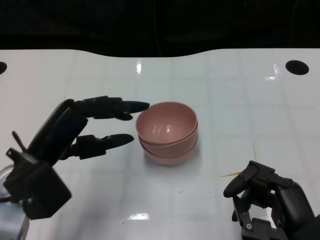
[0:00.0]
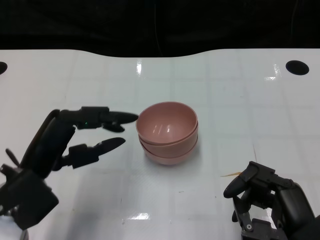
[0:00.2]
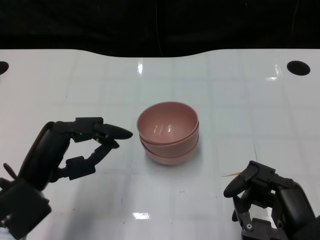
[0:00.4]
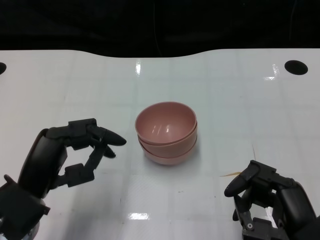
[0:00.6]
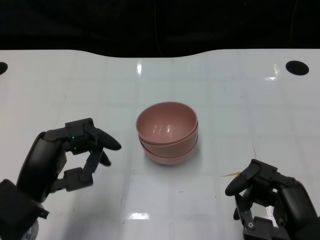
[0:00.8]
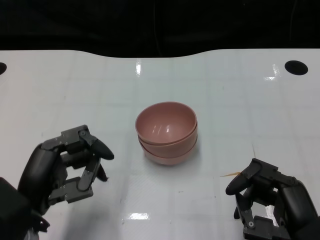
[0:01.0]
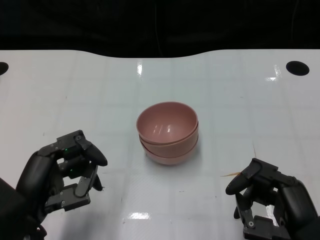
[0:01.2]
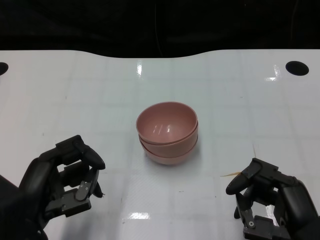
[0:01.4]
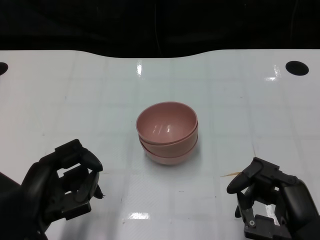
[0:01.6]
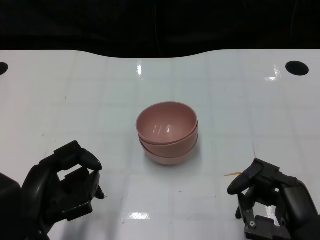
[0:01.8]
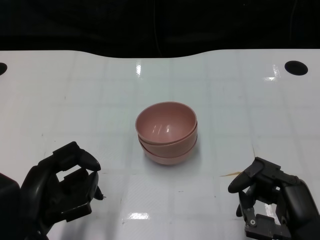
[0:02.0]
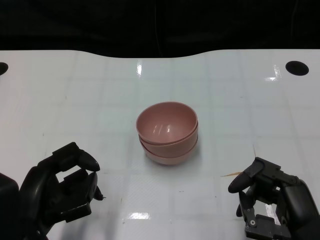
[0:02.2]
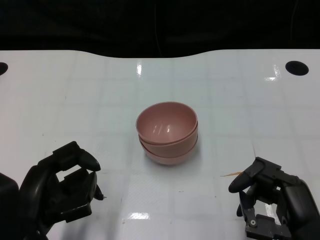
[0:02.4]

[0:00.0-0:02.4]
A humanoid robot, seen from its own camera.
Task of the whole recording: Pick up the bowl on one side of the table and place it on top of the middle bowl, then pick up the bowl on the other side of the table and place it on top of the middle bowls.
0:00.0 to 0:01.2: The left hand is displaced backward by about 5 cm.
0:01.2 to 0:02.4: There are only small adjustments of the hands.

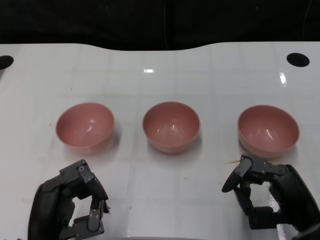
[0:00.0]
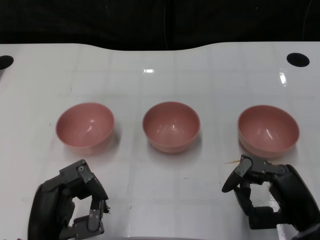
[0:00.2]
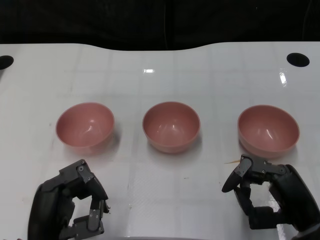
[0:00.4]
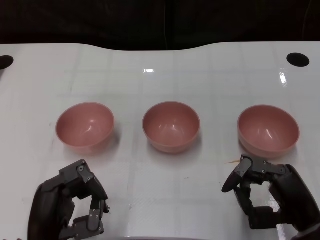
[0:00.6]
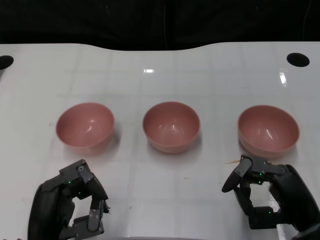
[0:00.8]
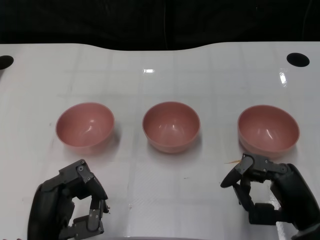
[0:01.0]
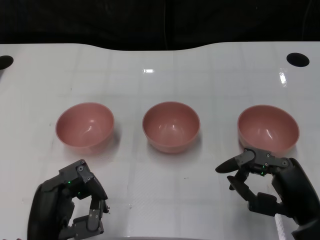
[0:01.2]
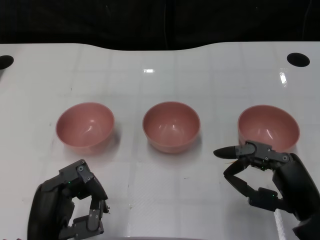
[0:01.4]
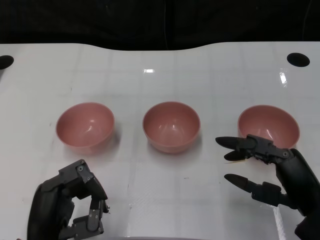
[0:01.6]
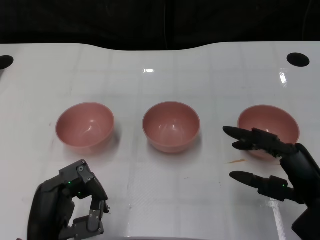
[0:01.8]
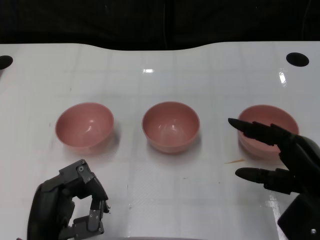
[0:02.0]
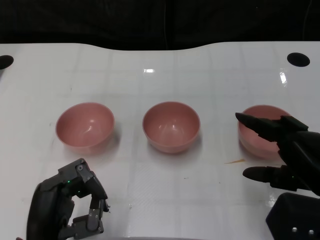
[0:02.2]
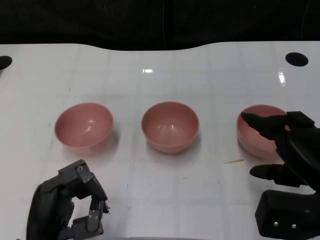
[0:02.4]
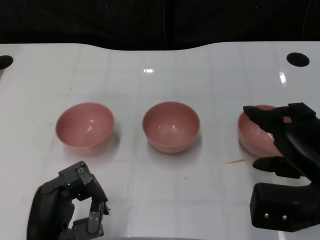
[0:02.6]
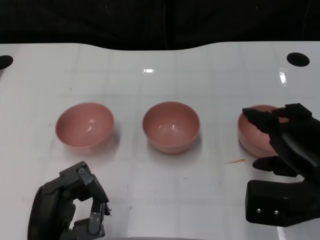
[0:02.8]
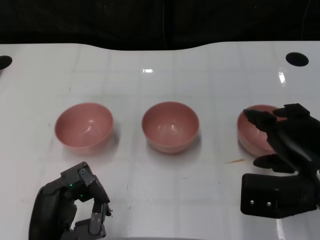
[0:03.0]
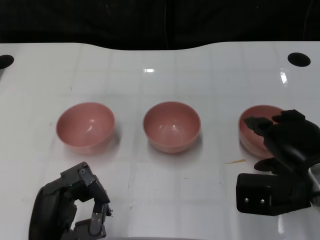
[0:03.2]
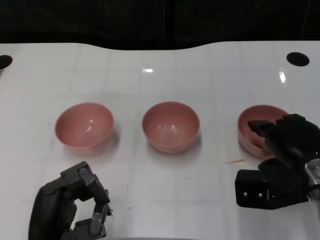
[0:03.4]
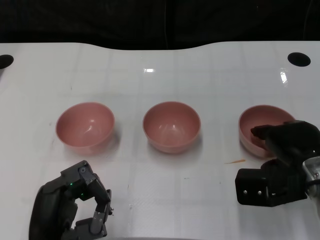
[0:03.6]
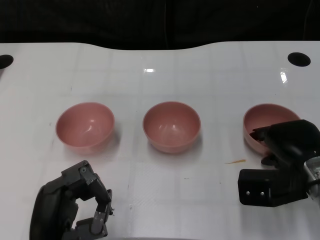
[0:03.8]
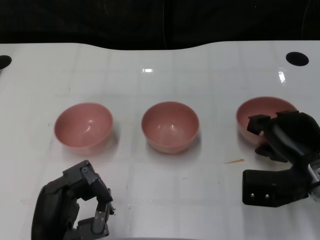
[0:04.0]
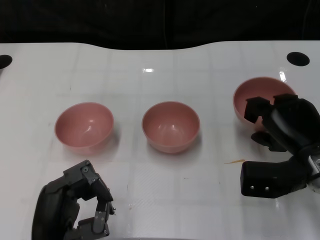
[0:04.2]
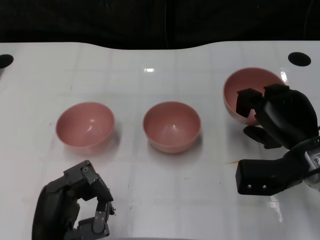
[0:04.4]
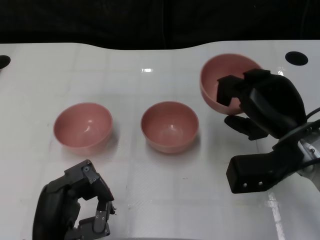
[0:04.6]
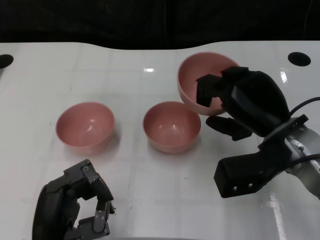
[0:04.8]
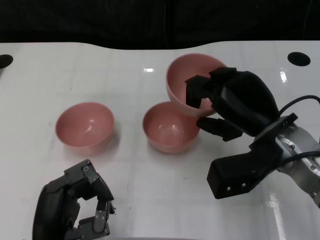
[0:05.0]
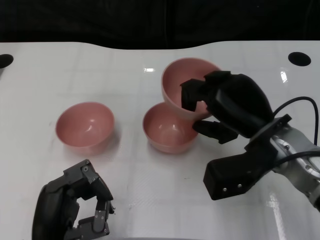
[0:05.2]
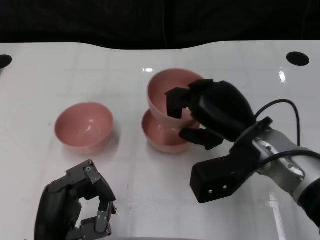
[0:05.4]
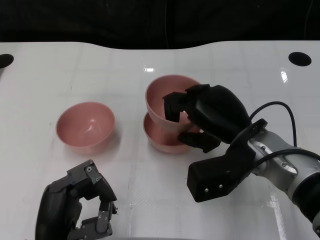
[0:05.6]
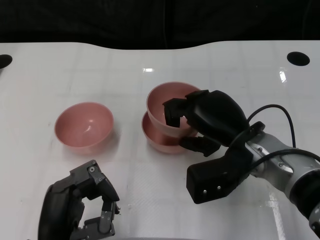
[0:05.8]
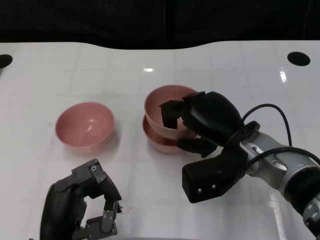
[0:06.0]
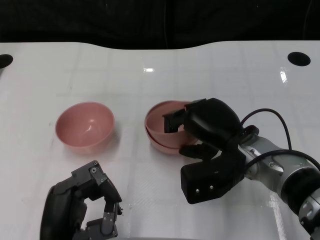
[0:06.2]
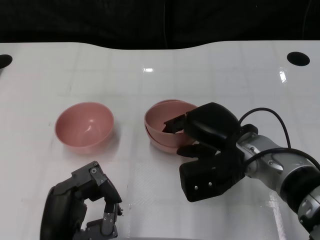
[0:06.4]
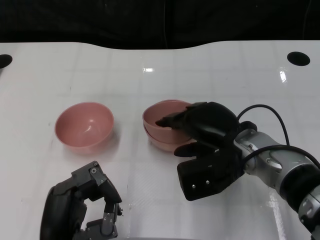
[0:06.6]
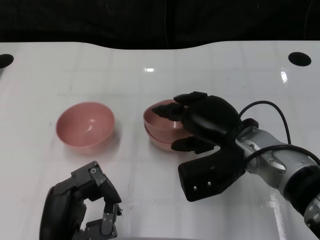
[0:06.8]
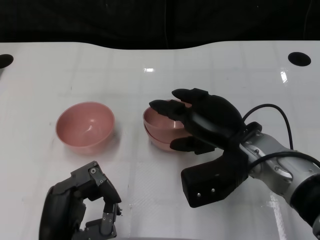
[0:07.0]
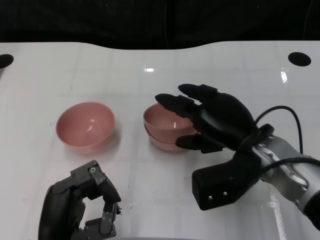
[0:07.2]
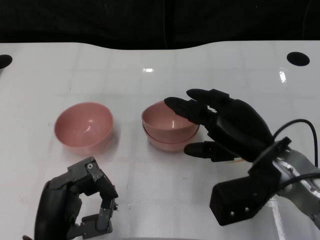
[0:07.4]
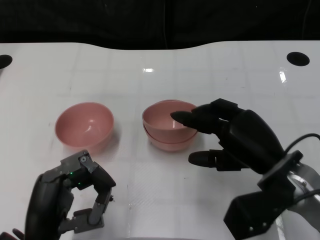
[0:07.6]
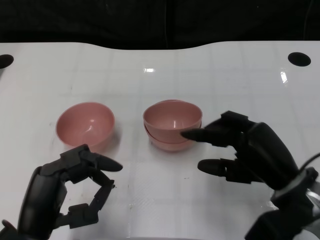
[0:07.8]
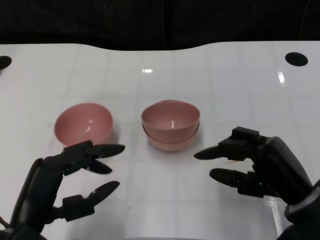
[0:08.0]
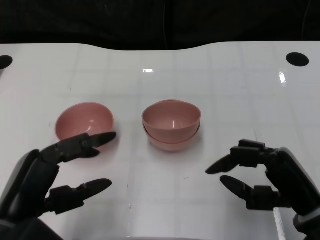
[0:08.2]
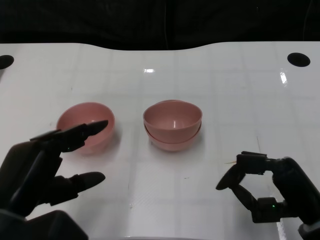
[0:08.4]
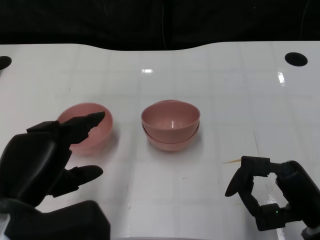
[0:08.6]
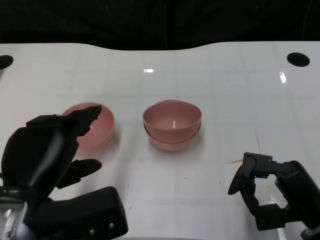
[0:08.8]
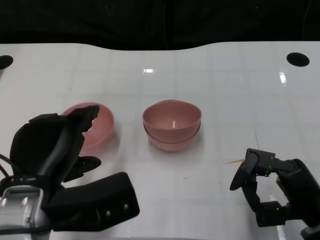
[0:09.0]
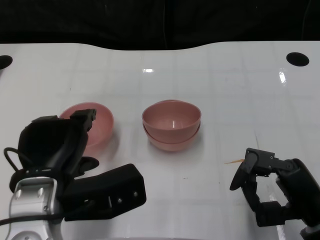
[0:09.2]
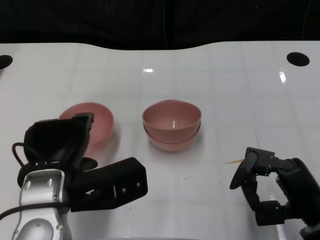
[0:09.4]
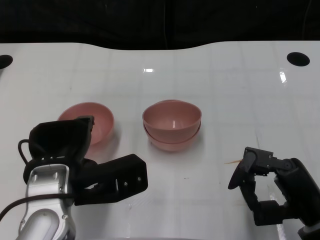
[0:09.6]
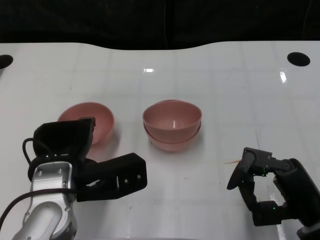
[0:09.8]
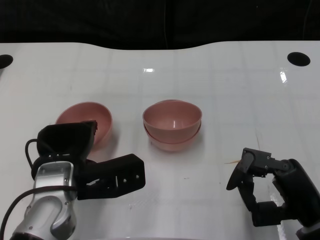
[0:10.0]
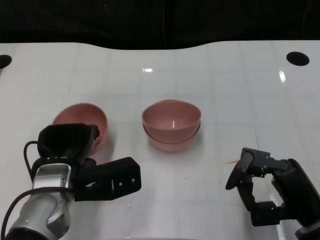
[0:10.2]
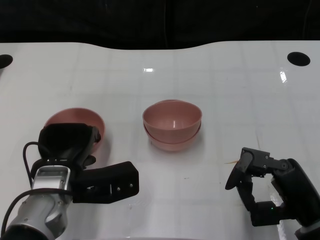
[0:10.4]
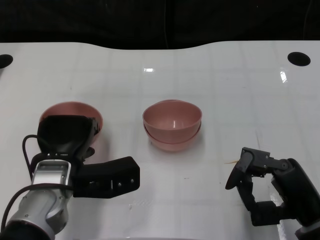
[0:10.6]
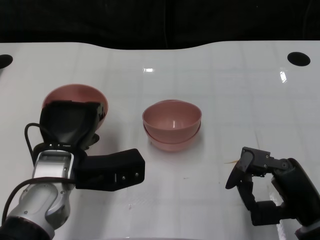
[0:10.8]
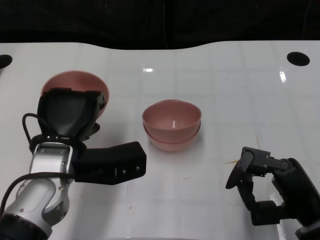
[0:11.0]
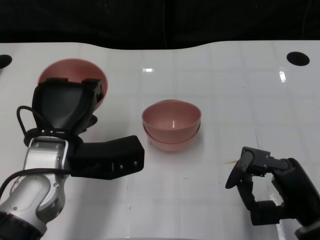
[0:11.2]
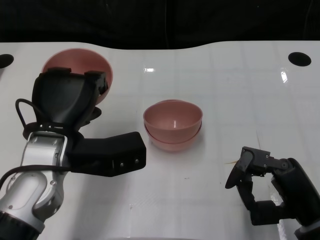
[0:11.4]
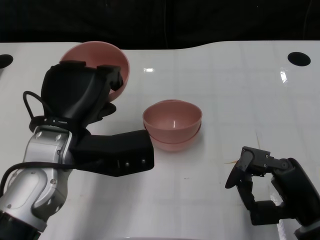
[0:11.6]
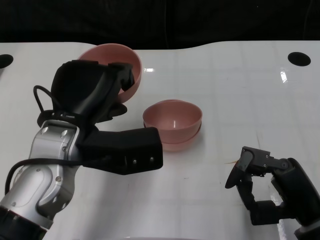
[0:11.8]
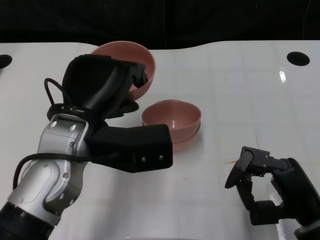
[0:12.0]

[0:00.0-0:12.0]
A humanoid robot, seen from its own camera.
Task of the whole recording: Pick up the bowl on one side of the table and place it on top of the middle bowl, then pick up the bowl on the other side of the table and place it on top of the middle bowls.
Step, 0:01.0 to 0:04.0: Grasp the bowl on the right with the right gripper.
Step, 0:04.2 to 0:07.2: Place the bowl on the right onto the bowl in the middle with right gripper.
Step, 0:07.4 to 0:10.4: Grasp the bowl on the left with the left gripper.
0:01.6 to 0:03.0: The right hand shifts by some 5 cm.
0:03.0 to 0:04.4: The right hand shifts roughly 5 cm forward.
0:04.4 to 0:06.0: The right hand is displaced to the left by about 10 cm.
0:06.0 to 0:07.6: The right hand heads to the right, covering roughly 5 cm.
0:07.6 to 0:09.0: The left hand shifts about 10 cm upward; the right hand goes approximately 10 cm backward and to the right.
0:09.0 to 0:10.4: The left hand travels downward and forward by some 10 cm.
0:10.4 to 0:12.0: The left hand is displaced upward by some 10 cm.

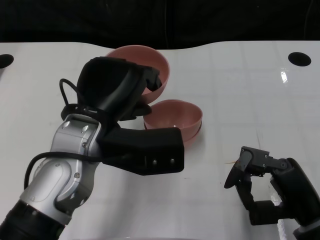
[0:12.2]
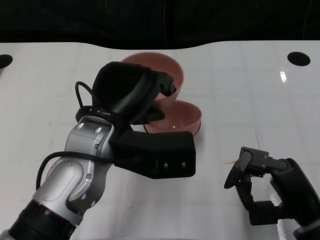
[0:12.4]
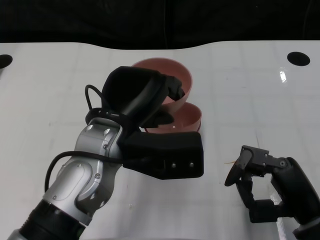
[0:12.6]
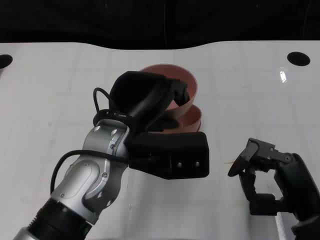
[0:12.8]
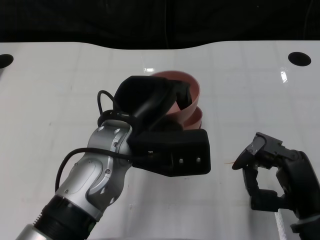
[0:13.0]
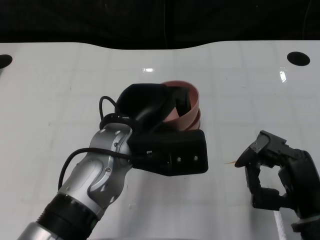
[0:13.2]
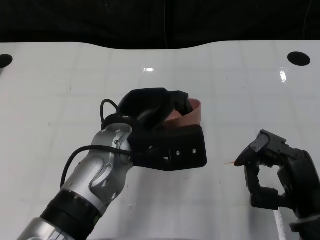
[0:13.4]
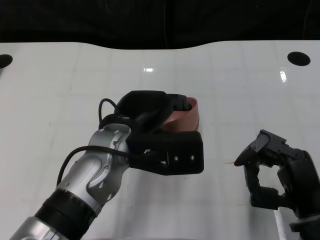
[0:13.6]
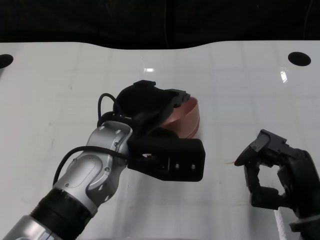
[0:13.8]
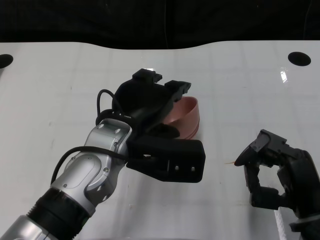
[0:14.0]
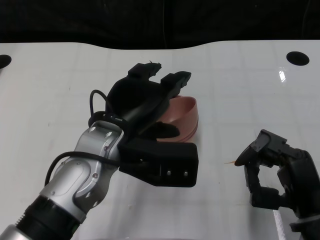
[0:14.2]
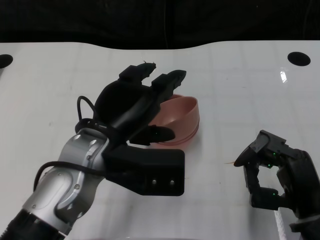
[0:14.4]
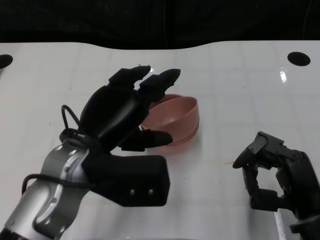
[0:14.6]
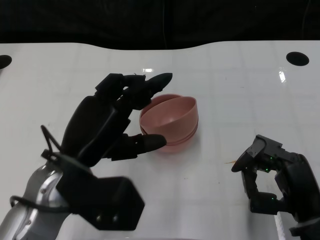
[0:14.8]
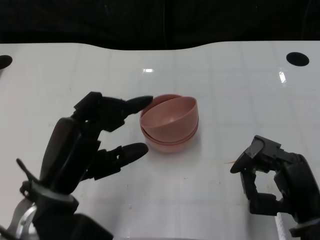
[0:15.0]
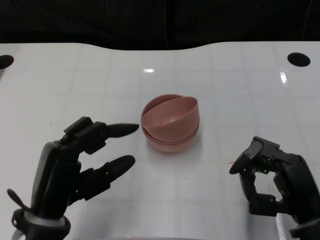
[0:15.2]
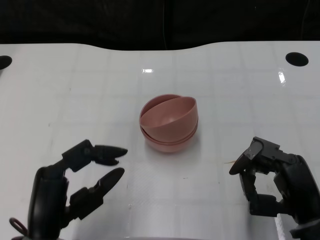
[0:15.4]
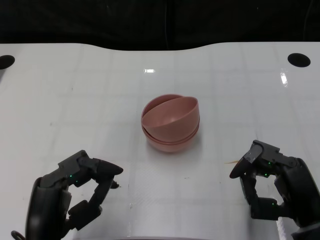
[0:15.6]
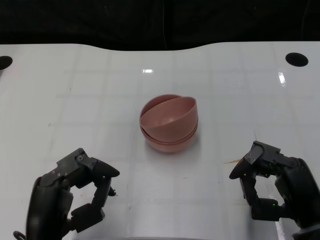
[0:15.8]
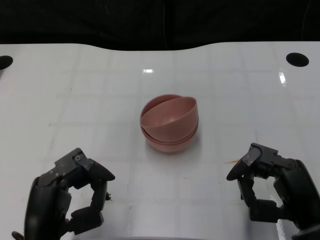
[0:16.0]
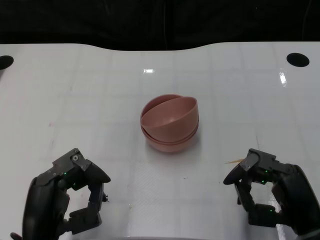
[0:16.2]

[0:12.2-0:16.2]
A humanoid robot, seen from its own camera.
Task of the whole recording: Pick up the bowl on one side of the table and place it on top of the middle bowl, then pick up the bowl on the other side of the table and place it on top of the middle bowls.
Step, 0:12.2 to 0:14.6: Place the bowl on the left onto the bowl in the middle with left gripper.
0:12.2 to 0:13.6: The left hand moves about 5 cm.
0:13.6 to 0:14.8: The left hand is displaced to the left and backward by roughly 10 cm.
0:14.8 to 0:16.2: The left hand shifts approximately 10 cm downward and backward.

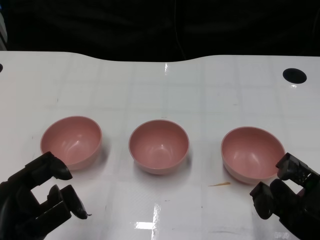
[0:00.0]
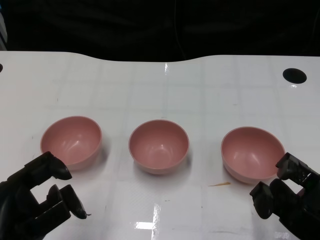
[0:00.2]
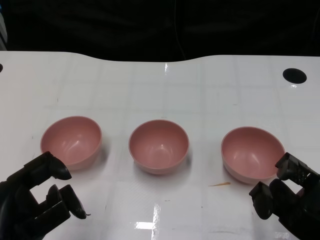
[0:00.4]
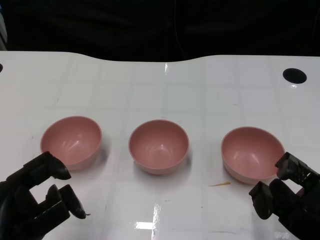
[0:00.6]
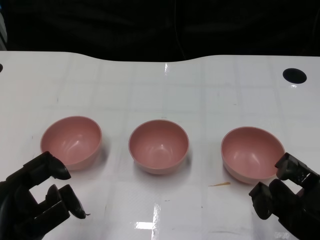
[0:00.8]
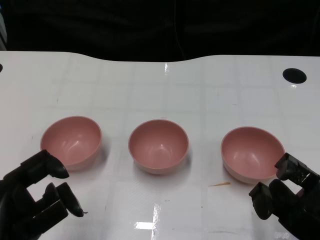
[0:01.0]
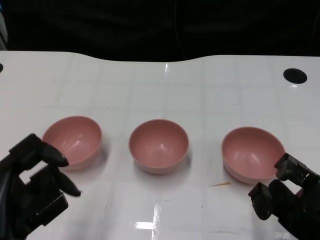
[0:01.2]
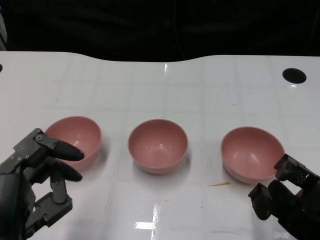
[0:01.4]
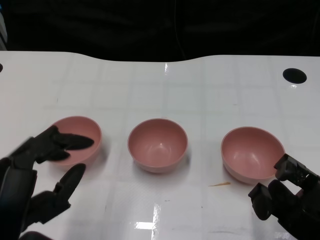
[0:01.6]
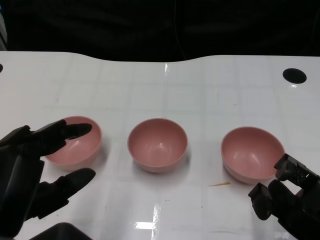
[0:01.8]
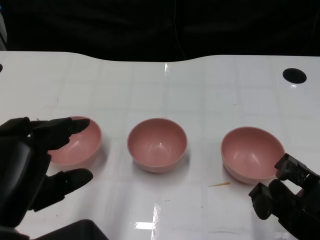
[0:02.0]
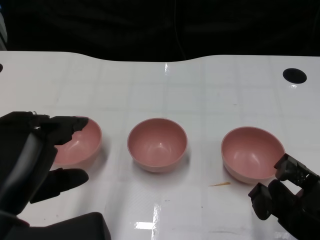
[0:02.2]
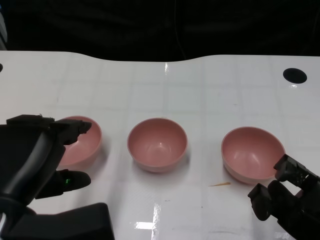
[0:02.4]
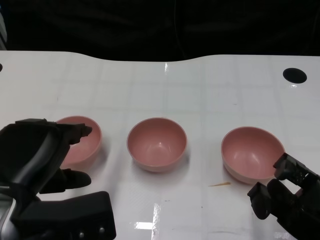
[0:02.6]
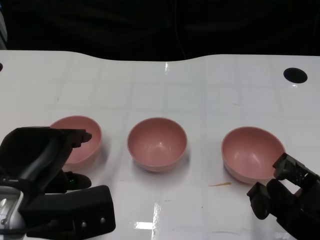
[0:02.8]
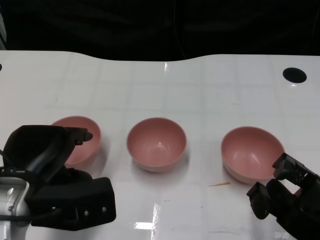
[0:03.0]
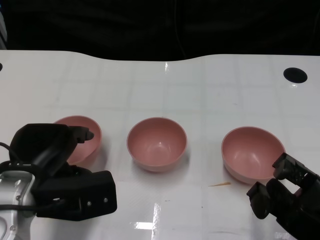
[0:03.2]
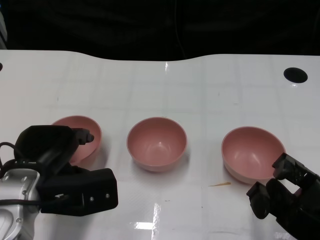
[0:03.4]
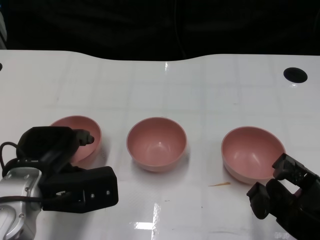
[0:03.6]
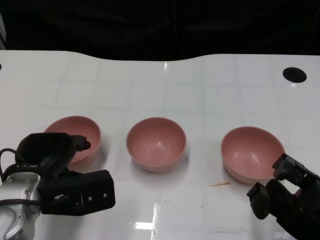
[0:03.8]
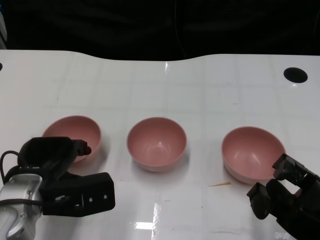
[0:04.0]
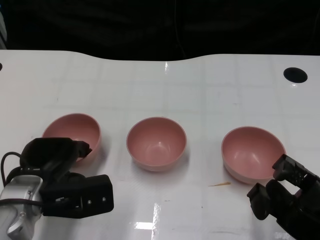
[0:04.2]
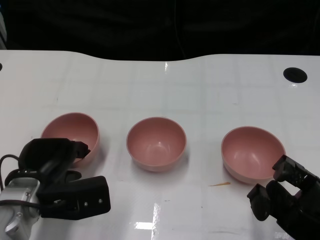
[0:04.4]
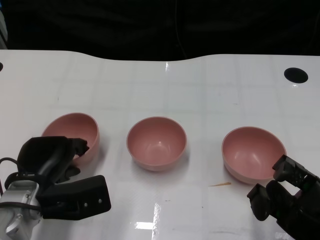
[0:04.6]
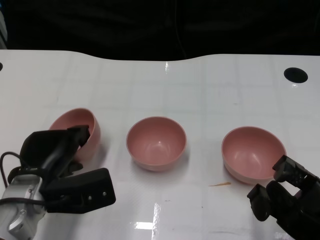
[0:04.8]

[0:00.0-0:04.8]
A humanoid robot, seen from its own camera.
Task of the whole recording: Pick up the bowl on one side of the table and place it on top of the middle bowl, then pick up the bowl on the other side of the table and place it on top of the middle bowls.
0:01.6 to 0:03.2: The left hand moves forward, some 10 cm.
0:03.2 to 0:04.8: The left hand heads downward, covering some 5 cm.
